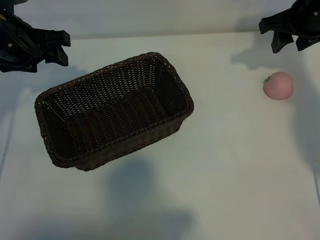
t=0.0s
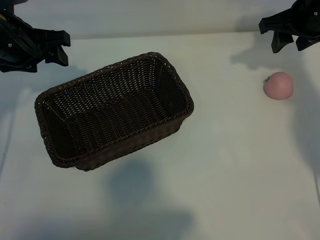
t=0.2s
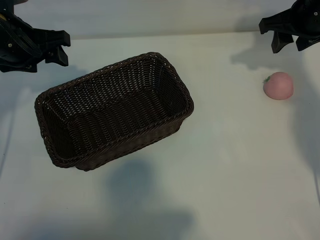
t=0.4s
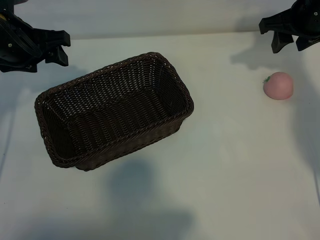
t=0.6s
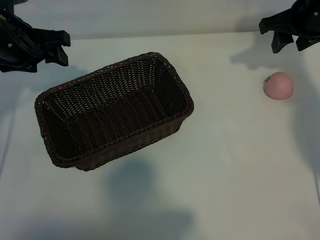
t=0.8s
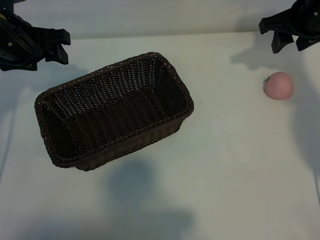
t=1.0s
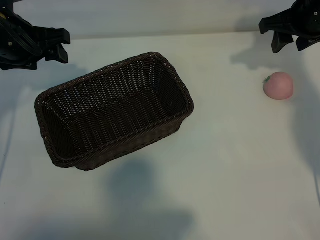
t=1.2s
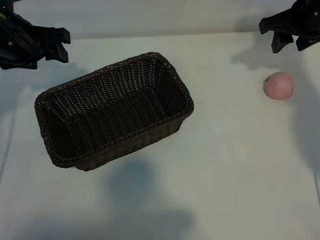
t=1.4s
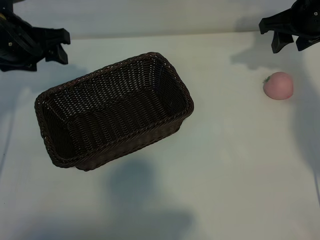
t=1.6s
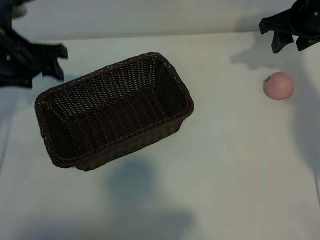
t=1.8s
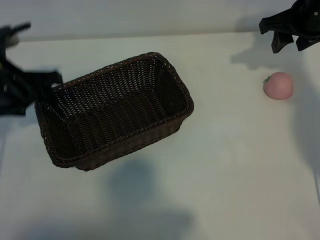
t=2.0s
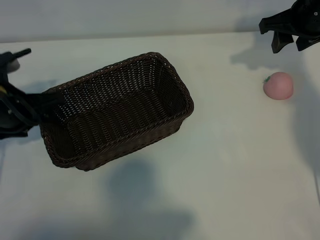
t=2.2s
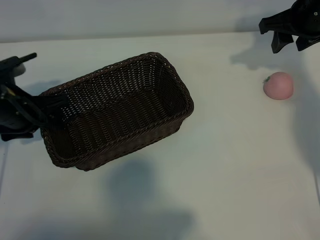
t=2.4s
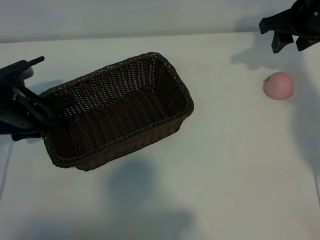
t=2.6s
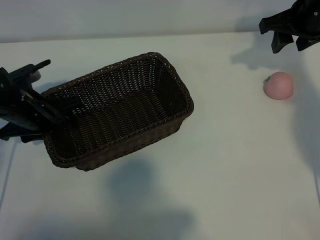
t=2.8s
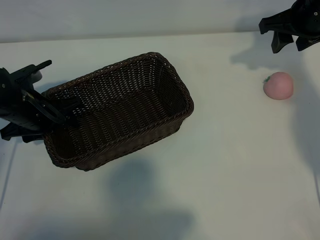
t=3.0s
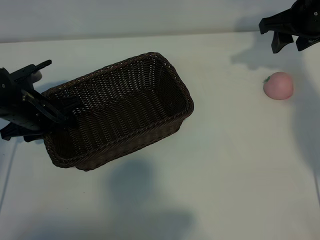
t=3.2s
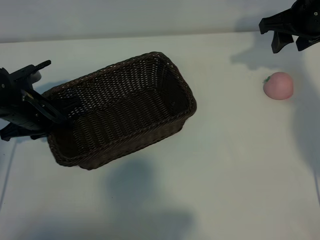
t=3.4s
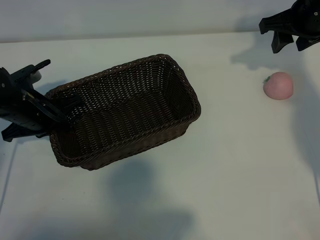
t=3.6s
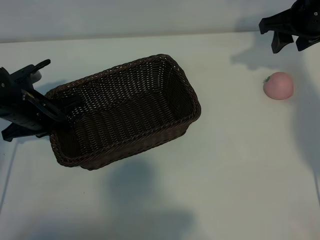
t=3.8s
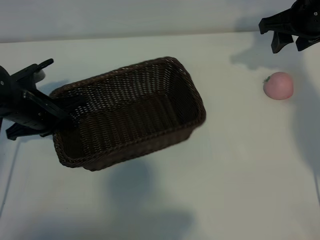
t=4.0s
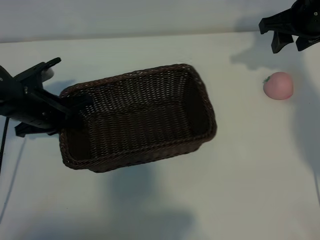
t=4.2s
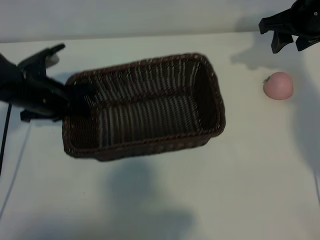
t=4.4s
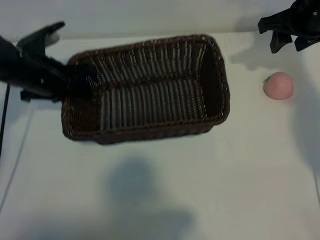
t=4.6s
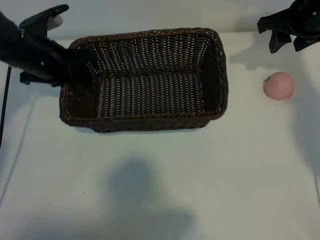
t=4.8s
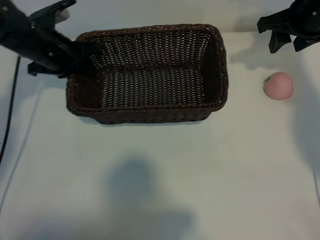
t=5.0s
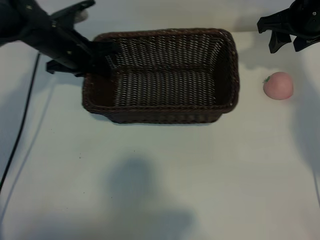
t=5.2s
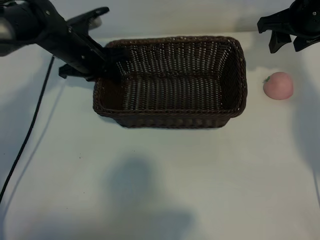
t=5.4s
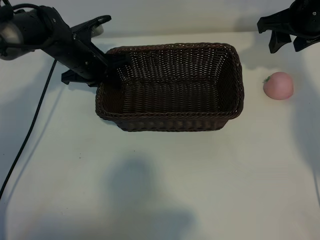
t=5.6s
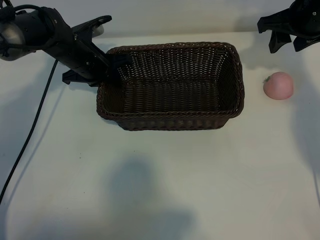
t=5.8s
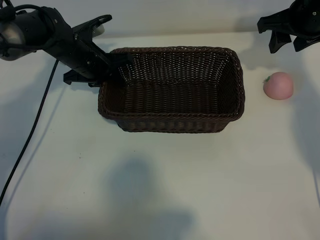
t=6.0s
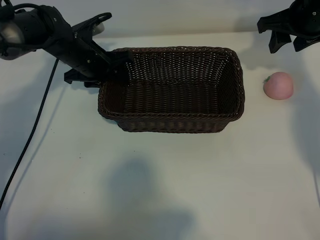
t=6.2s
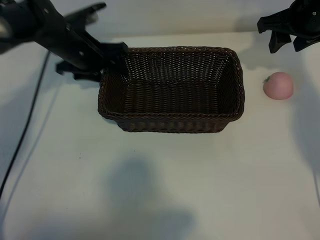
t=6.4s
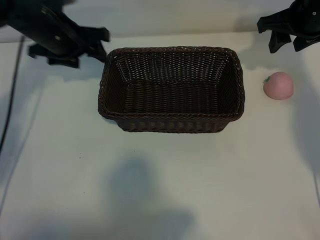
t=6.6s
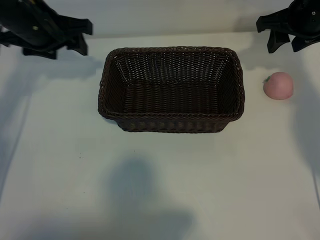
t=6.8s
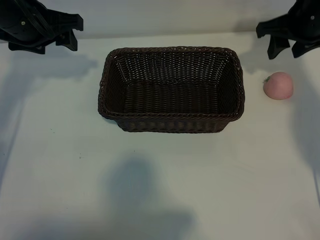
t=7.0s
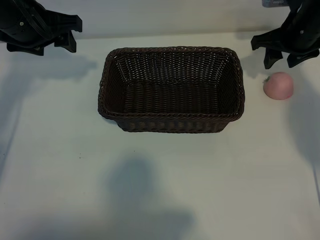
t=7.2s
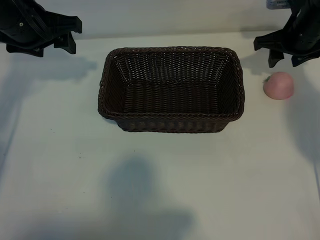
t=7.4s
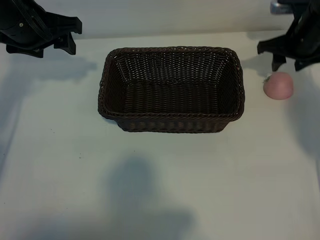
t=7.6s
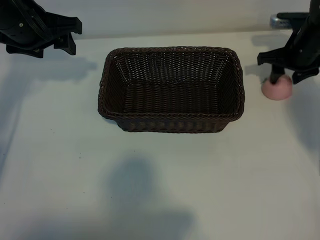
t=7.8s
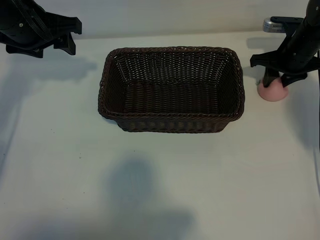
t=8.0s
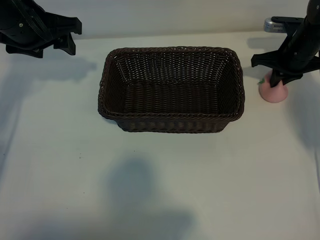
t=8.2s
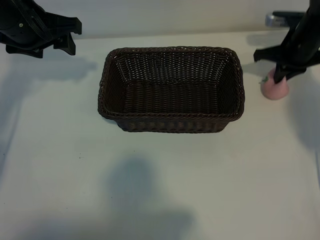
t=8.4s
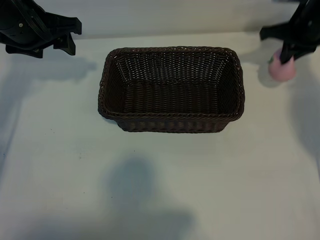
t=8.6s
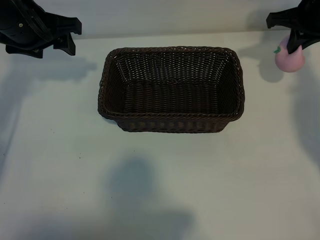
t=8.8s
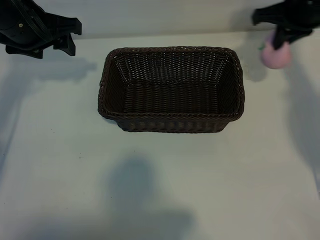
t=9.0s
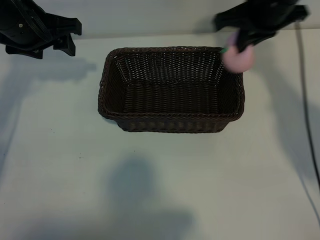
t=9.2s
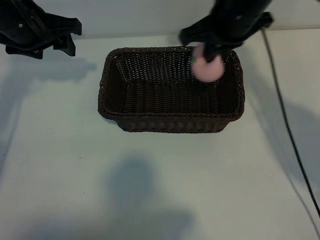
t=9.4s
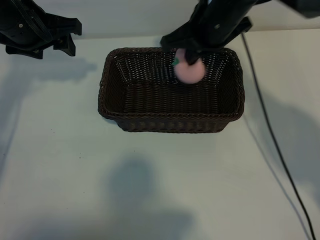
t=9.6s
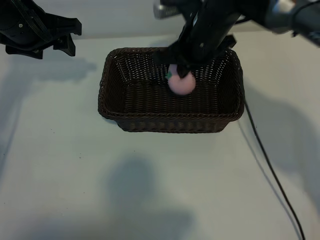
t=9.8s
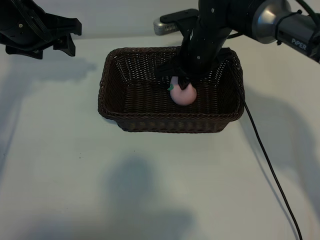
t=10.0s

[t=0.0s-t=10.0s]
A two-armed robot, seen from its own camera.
Task of the whole recording: pick up the peach and put it into the basket.
Step, t=1.0s to t=3.4s: Grasp the basket with left gripper.
Step, t=3.8s to t=6.2s: Place the basket in the center of view with left gripper.
Step, t=6.6s to t=8.2s: Grasp the peach with right gripper.

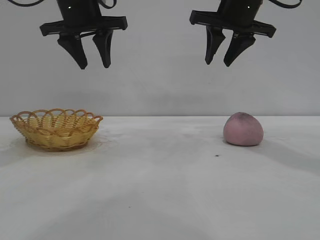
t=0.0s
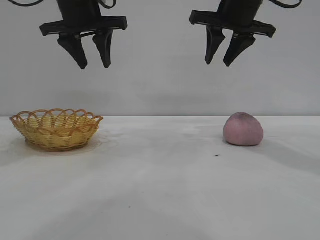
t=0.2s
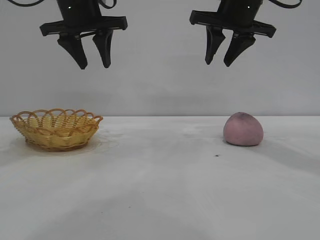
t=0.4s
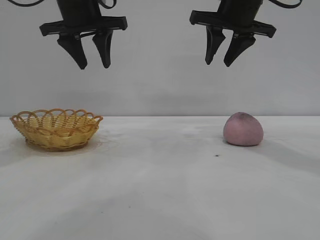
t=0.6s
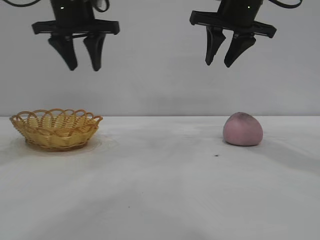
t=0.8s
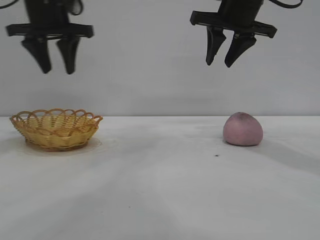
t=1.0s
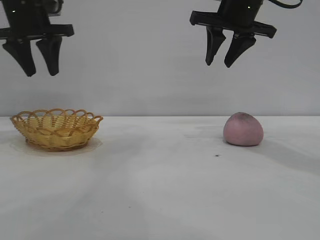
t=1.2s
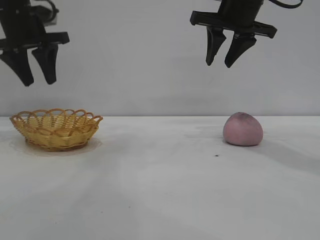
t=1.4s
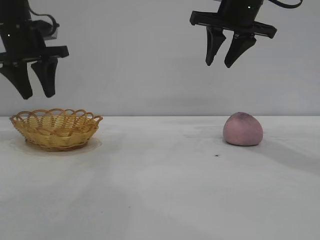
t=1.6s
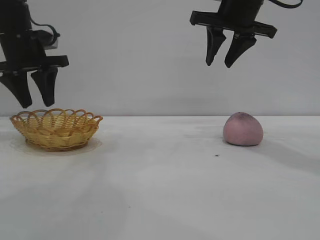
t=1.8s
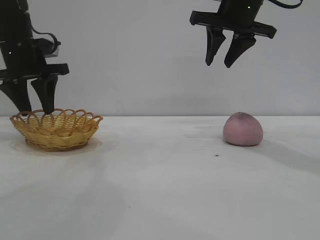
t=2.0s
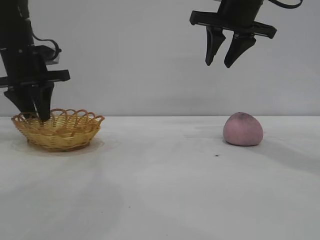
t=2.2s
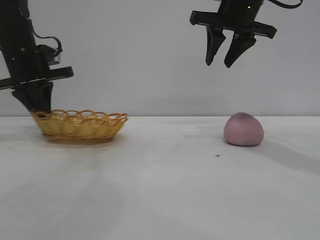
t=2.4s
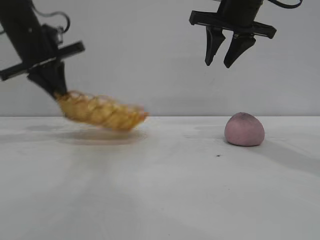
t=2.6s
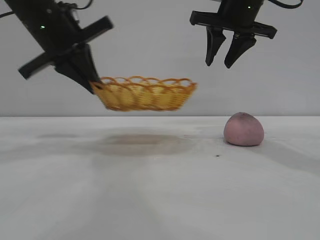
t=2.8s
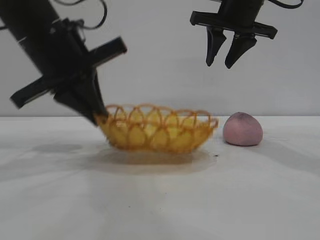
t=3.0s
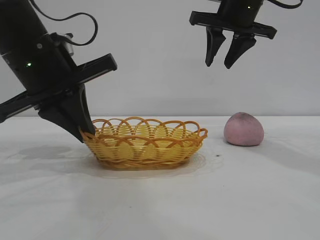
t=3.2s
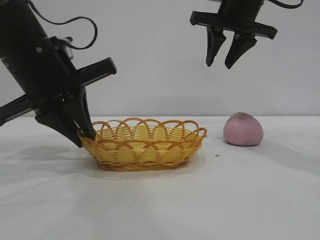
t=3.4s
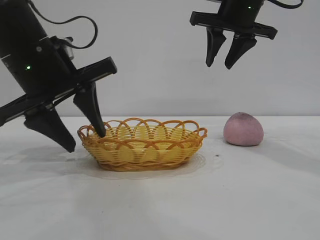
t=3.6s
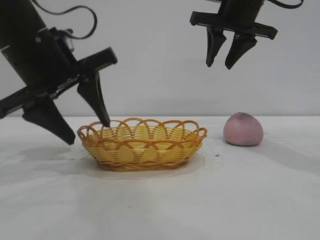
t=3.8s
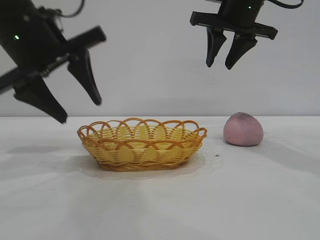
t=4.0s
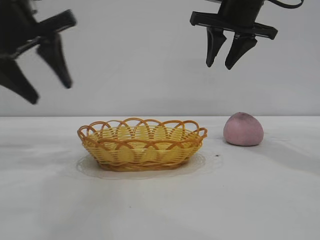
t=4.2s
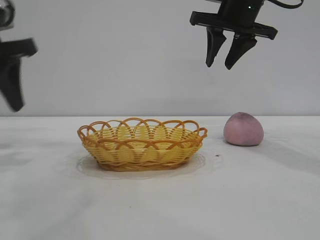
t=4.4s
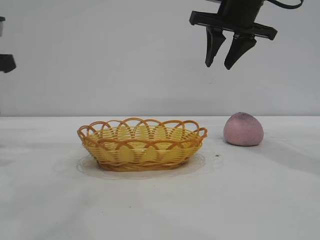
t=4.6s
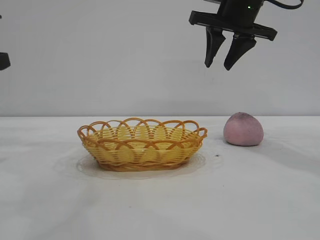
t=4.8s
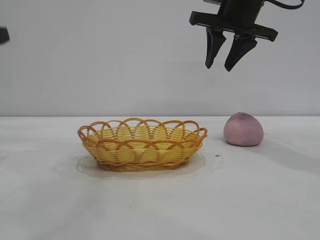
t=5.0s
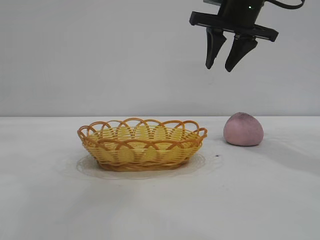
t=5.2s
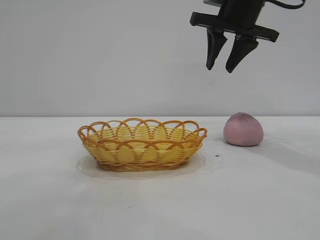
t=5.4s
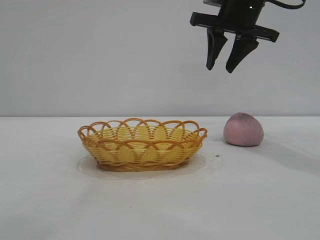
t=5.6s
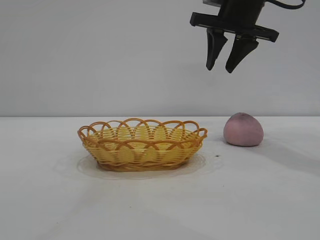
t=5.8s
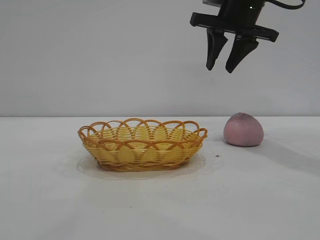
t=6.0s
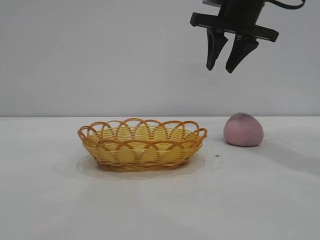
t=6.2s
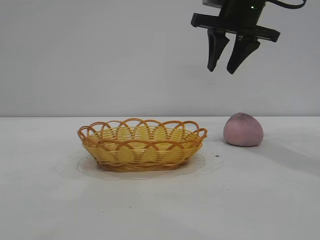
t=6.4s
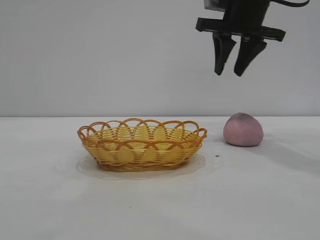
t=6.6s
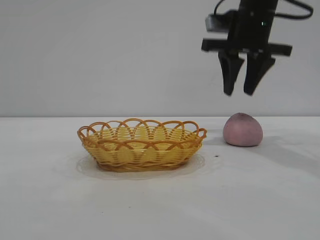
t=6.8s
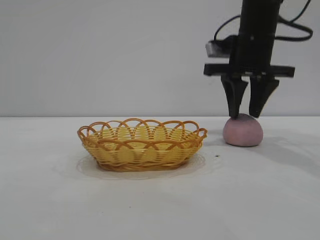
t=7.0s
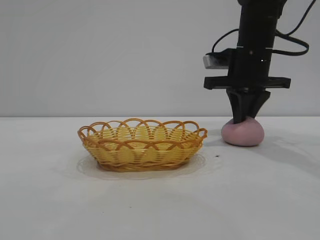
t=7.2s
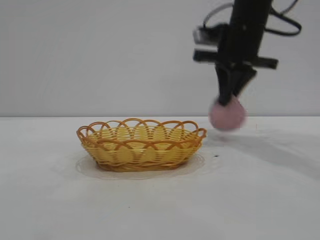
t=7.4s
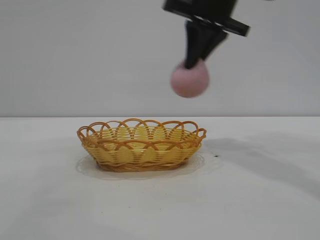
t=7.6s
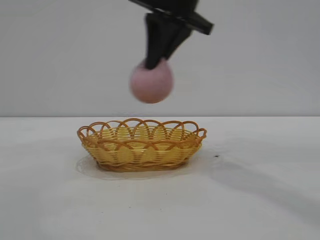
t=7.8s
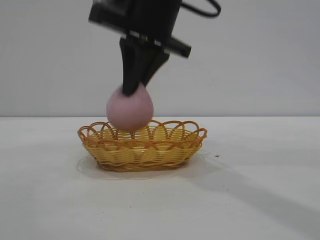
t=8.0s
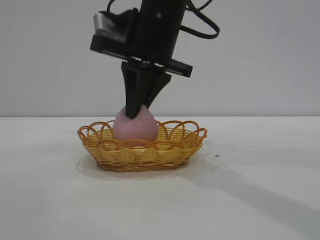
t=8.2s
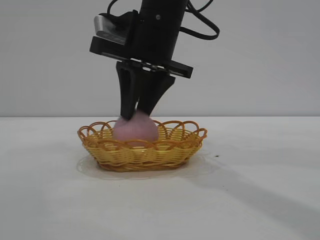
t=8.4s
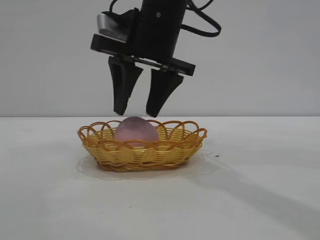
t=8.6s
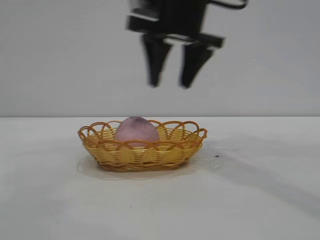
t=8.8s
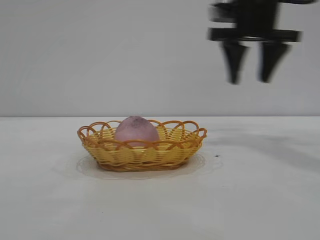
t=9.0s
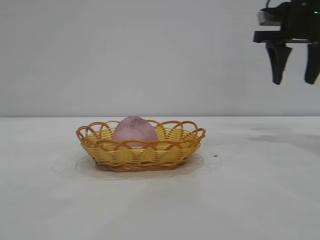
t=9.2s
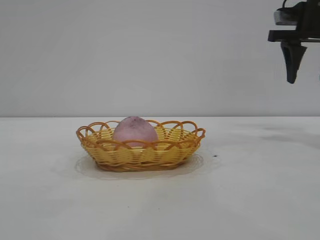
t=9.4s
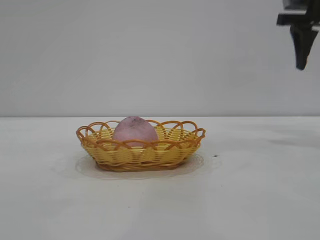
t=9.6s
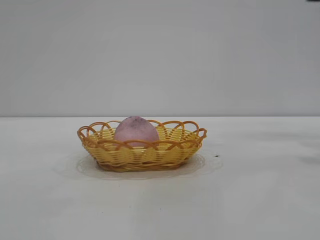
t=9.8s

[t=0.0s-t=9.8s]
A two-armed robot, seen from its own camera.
Task of the whole recording: pick up the peach and put it into the basket.
Step, t=0.0s to t=4.0s: Move the basket to the center of view.
Step, t=4.2s to t=7.2s: Pick up the peach.
Step, t=7.6s to t=8.6s: place the peach into the basket.
